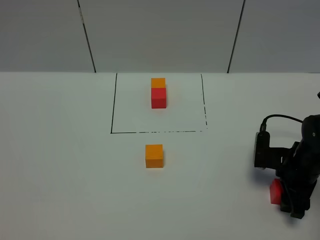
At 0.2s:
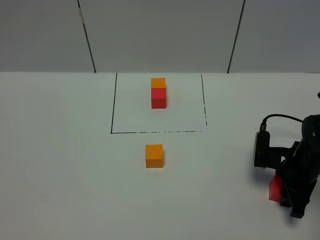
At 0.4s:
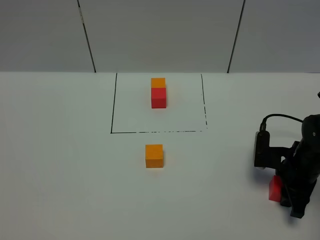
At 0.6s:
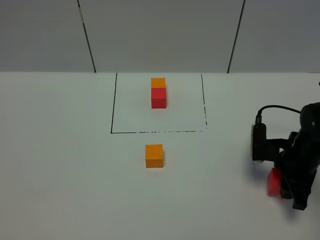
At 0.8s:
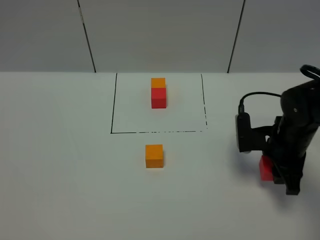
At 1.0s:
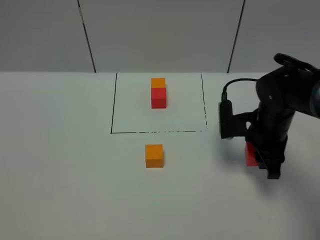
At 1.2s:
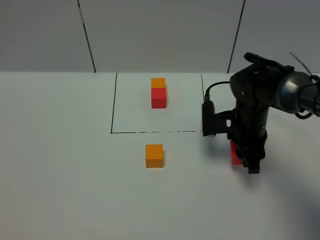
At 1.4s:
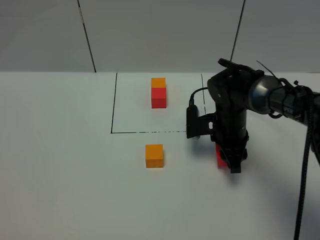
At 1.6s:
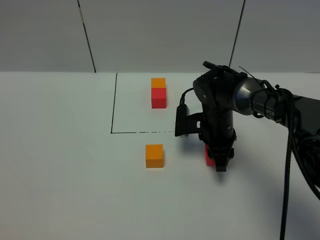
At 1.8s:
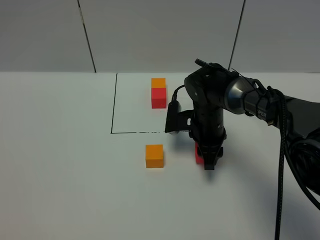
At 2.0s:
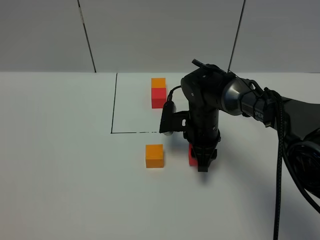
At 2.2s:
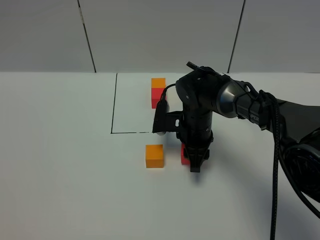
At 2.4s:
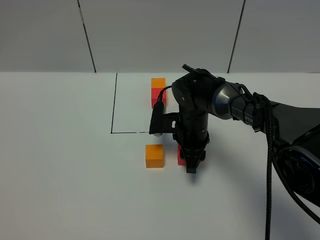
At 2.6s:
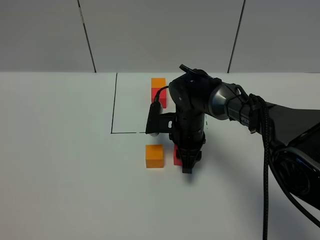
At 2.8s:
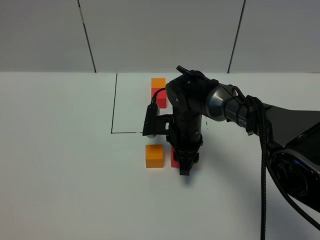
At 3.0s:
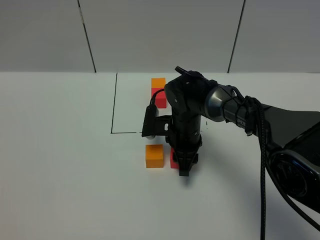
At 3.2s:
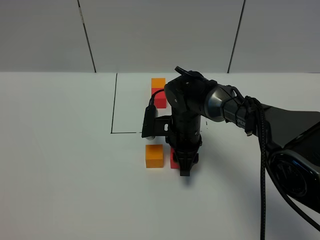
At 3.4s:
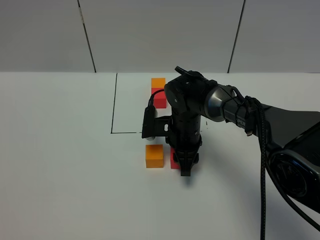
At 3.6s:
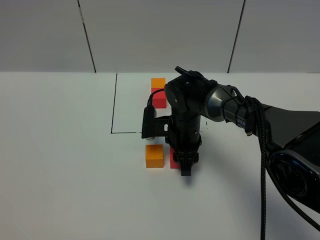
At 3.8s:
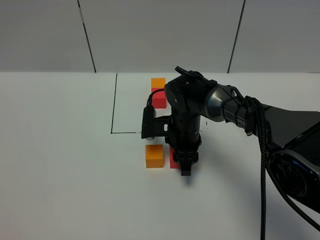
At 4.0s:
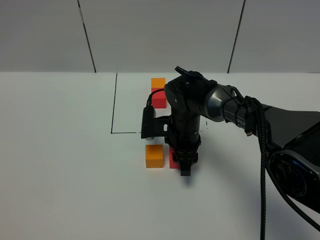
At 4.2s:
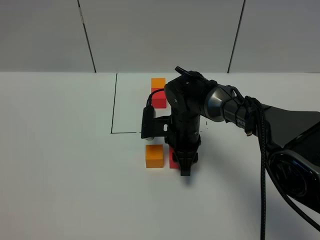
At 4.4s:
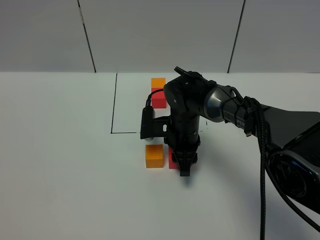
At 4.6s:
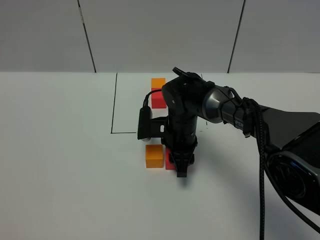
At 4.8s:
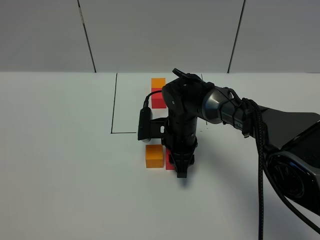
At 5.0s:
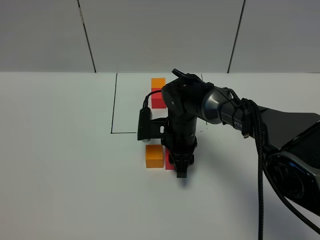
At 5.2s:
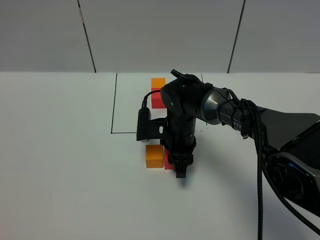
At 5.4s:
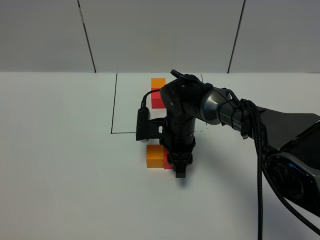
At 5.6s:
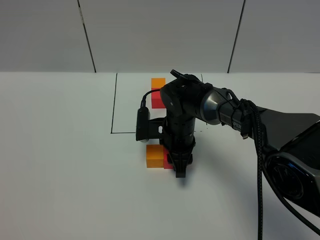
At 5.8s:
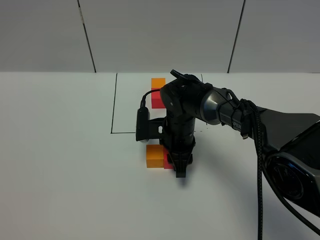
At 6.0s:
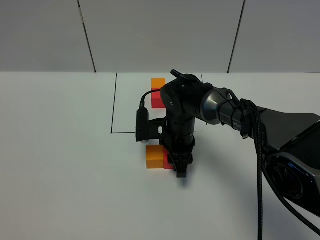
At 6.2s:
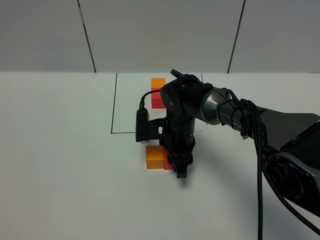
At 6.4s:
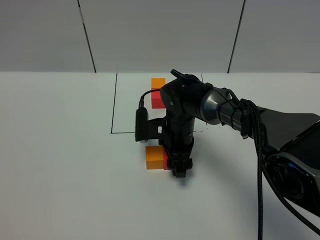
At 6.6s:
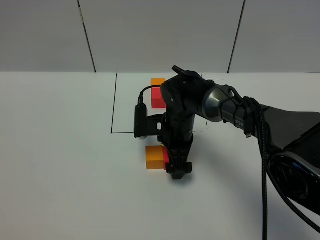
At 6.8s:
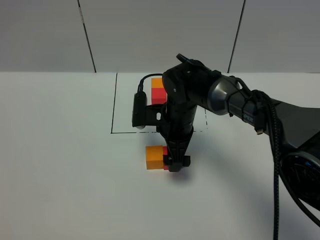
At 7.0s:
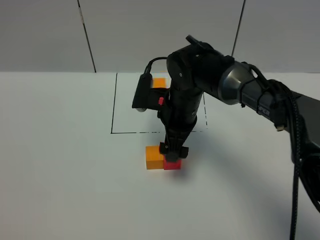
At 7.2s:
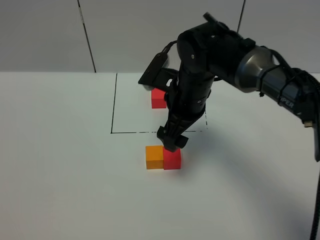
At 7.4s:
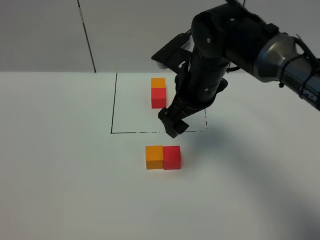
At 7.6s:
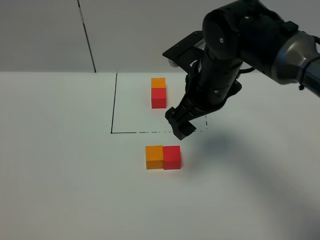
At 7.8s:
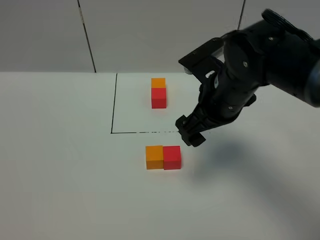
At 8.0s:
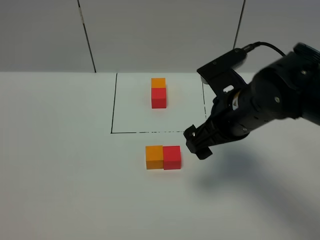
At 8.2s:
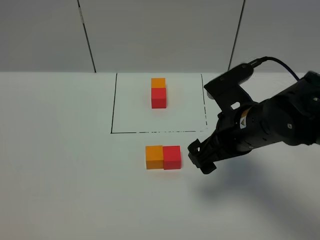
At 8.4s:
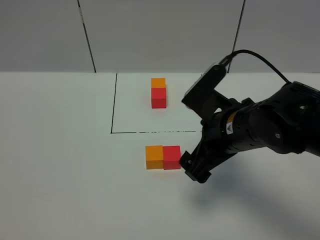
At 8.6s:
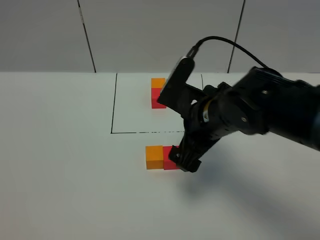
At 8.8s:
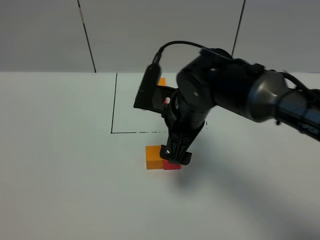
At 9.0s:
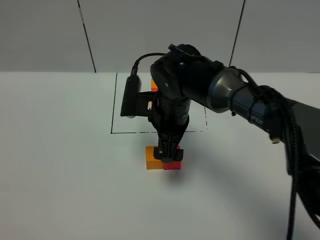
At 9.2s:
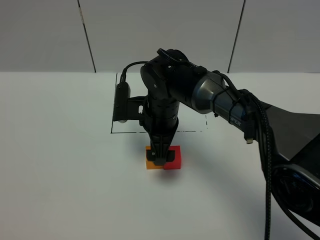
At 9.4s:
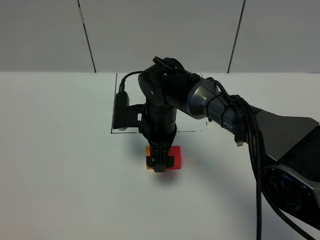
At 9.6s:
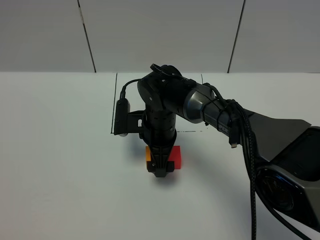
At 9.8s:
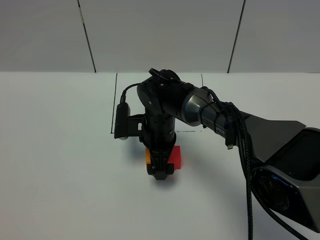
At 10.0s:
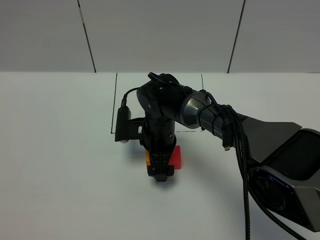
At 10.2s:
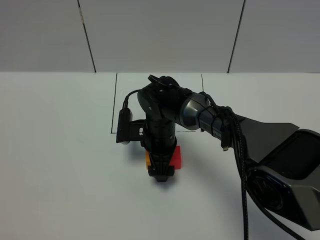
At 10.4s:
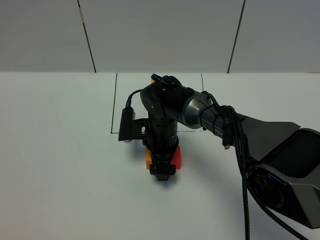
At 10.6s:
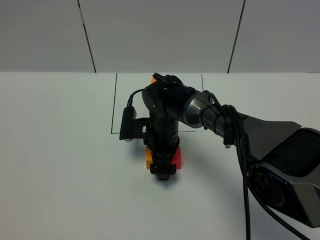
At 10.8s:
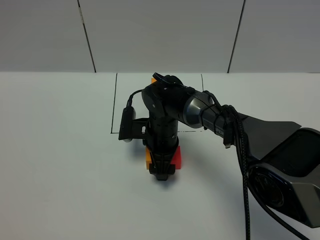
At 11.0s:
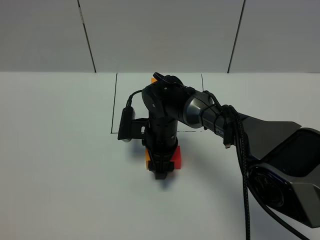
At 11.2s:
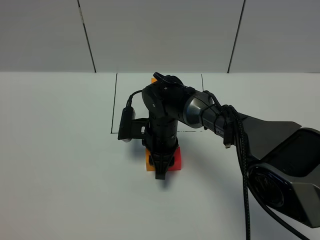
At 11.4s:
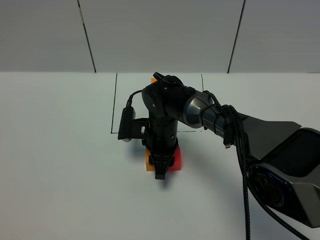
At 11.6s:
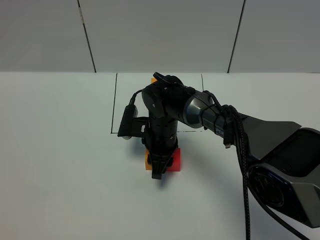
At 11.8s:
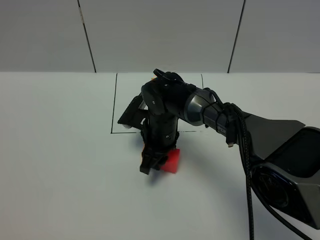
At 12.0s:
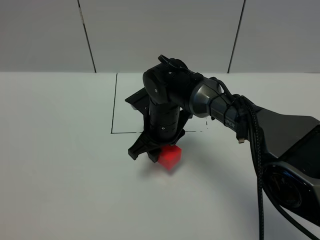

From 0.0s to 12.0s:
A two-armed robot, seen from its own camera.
Task of the whole recording: According to the building block template in front, assemble the scattered blocks together.
Step, from 0.0s to 6.8s: Put the red cube on the right of the orange cube.
From 0.0s to 1.6s: The right gripper goes roughly 20 cm to the left and forward.
From 1.6s to 3.0s: The right gripper goes roughly 5 cm to the left.
From 3.0s to 4.4s: Neither gripper changes place.
From 4.4s to 6.0s: The two grippers keep their place.
From 6.0s to 7.6s: The right gripper is displaced upward by roughly 15 cm, and opens up.
From 7.6s to 9.0s: The right gripper heads downward and to the left, covering about 10 cm.
From 9.0s to 10.4s: The right gripper travels downward by roughly 10 cm.
From 10.4s to 12.0s: The right gripper closes up.

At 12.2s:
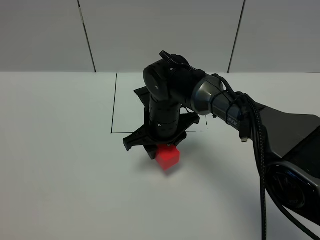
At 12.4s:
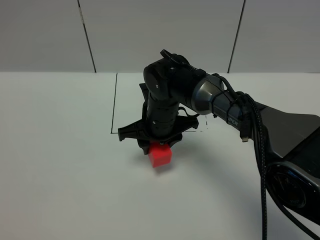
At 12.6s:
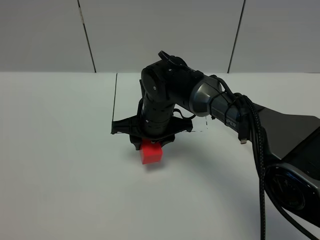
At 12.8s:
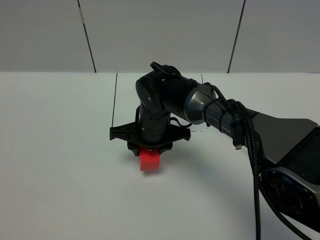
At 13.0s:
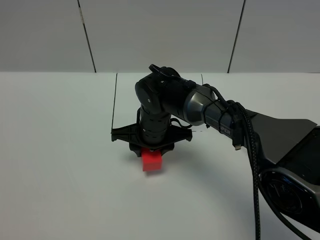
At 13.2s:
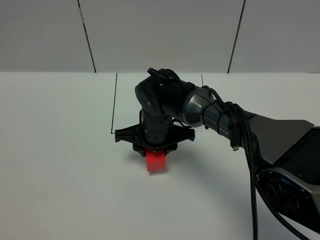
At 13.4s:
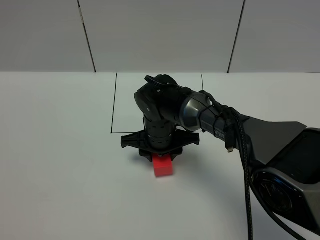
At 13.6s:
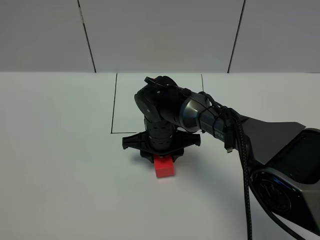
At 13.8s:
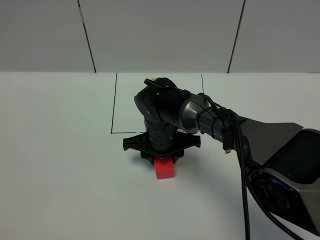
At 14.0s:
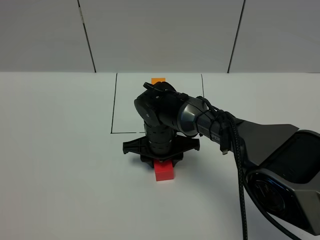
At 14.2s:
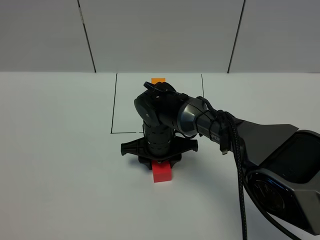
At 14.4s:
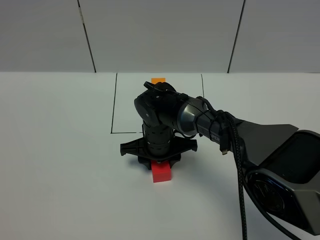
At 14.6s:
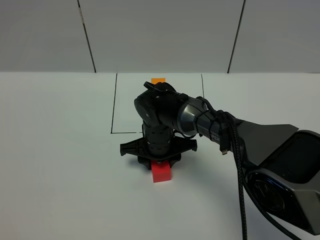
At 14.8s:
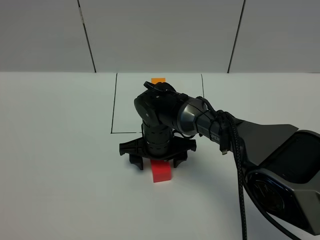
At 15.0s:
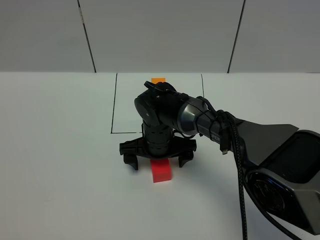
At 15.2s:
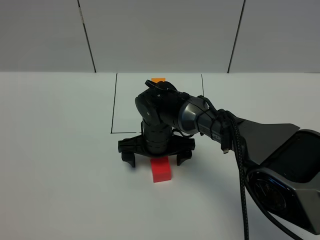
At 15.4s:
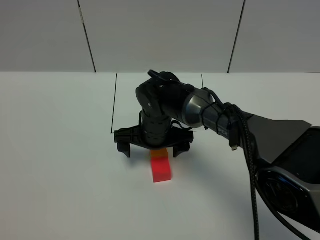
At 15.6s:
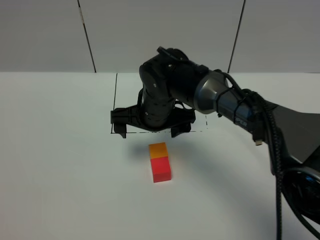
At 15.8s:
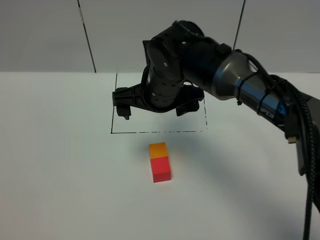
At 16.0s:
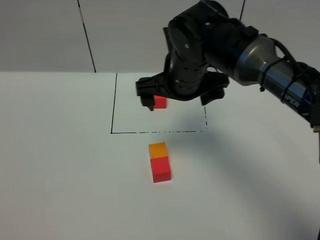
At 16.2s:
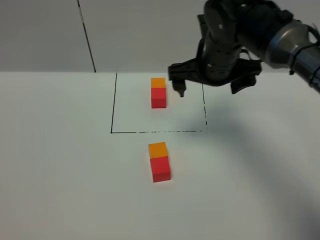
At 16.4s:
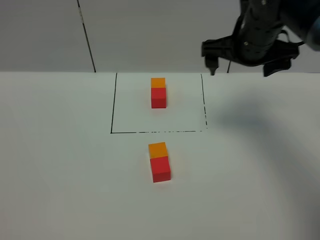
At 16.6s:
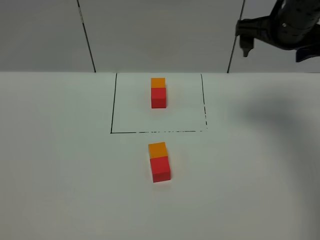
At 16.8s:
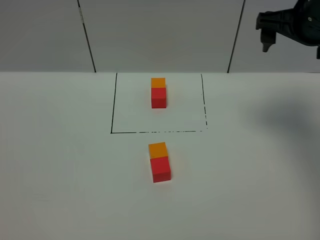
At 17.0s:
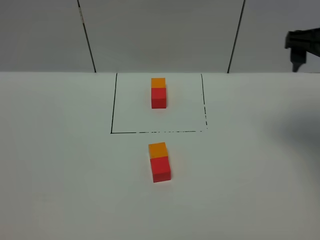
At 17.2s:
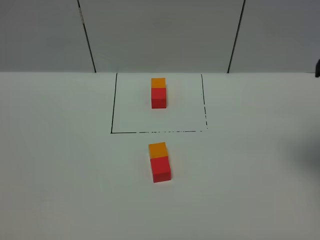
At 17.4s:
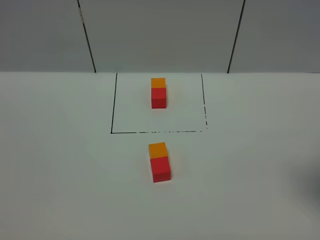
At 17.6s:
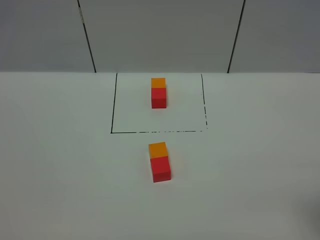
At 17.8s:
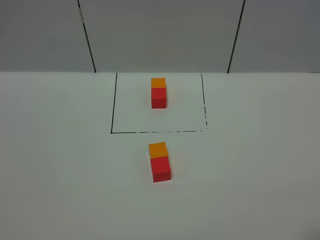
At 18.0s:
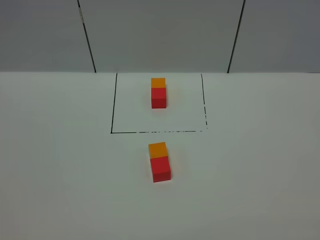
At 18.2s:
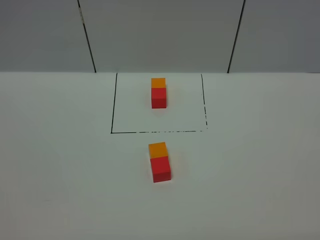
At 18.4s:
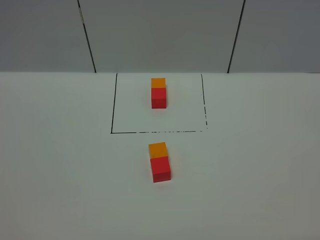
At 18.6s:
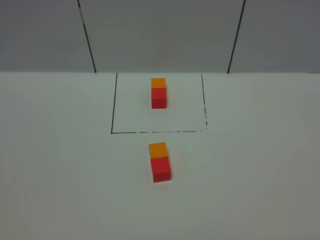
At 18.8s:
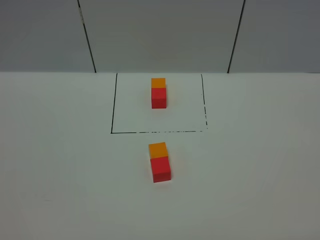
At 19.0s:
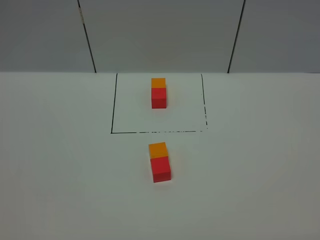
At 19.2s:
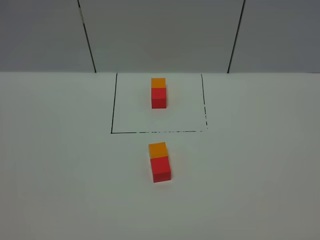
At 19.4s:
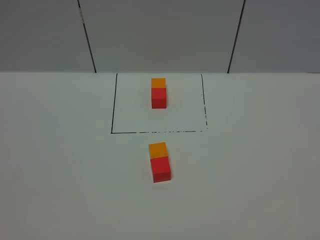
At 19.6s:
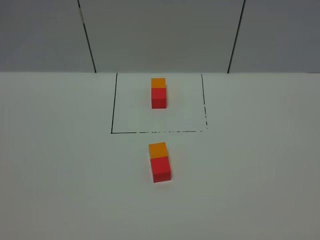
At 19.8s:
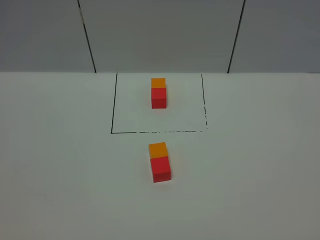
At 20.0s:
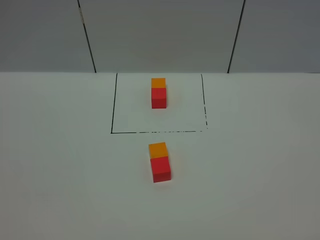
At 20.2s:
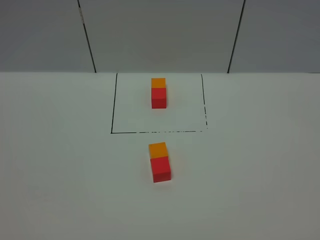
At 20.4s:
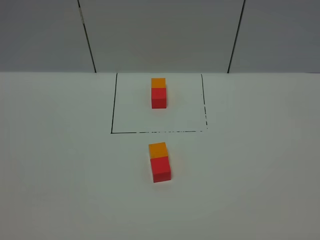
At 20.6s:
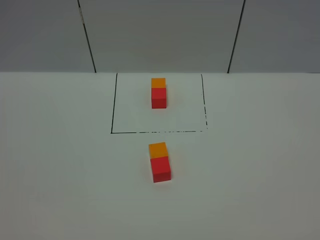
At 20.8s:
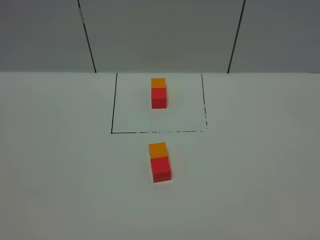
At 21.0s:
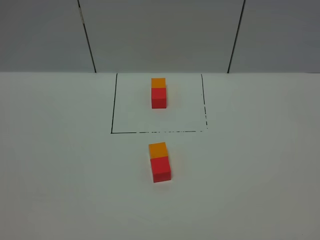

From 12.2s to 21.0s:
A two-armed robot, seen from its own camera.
Task of the whole recording: According to the building block template in front, assemble the scattered blocks together.
Step, from 12.2s to 15.6s: Adjust the pose of the building blocks.
From 13.6s to 15.2s: The right gripper opens.
From 15.2s to 16.6s: The right gripper travels upward and to the right by about 35 cm.
From 16.6s to 18.0s: The right gripper is displaced backward by about 35 cm.
From 19.6s to 21.0s: Neither gripper changes place.

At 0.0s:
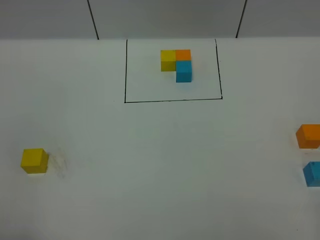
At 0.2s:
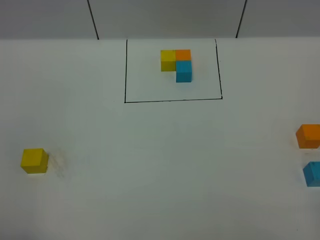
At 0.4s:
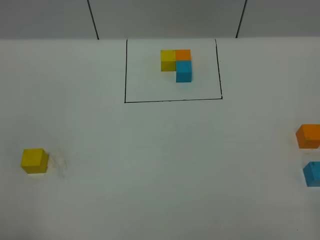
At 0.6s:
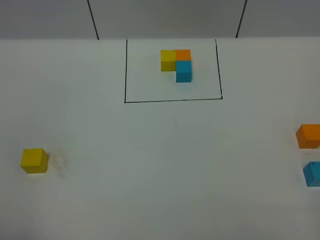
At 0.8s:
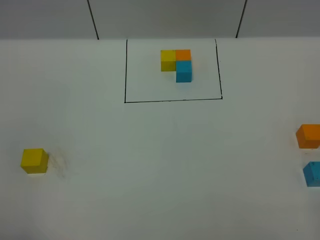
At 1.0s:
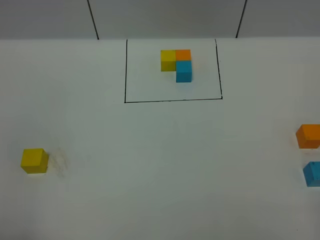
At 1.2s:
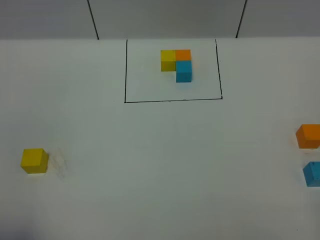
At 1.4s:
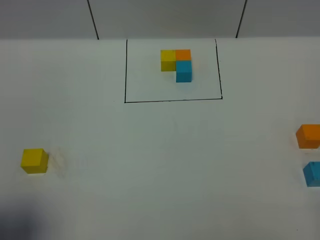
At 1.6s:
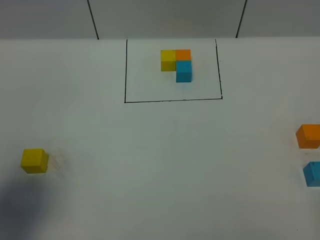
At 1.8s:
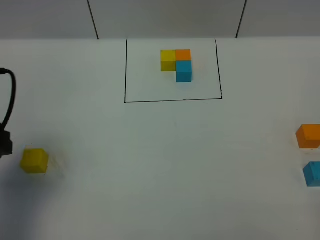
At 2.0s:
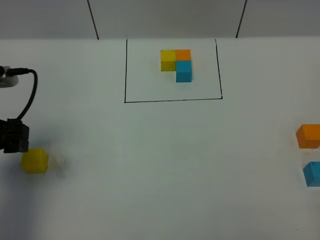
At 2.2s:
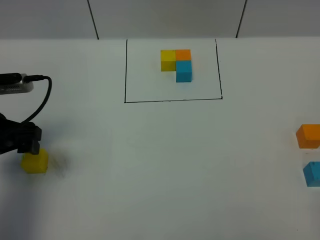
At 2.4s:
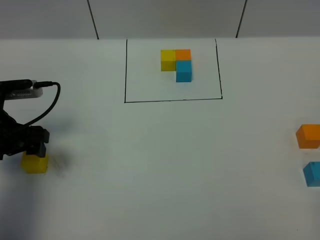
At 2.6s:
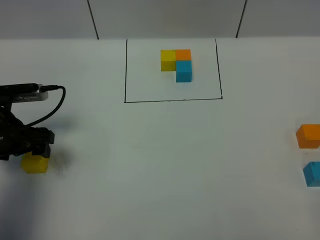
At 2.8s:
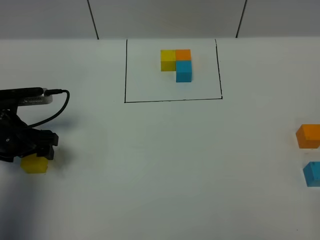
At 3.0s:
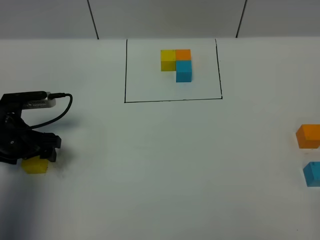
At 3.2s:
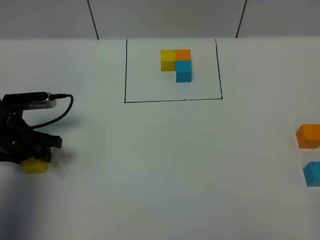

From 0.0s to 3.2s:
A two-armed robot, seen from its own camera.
Task of the whole recording: According to the building block template in front, assemble the scattered blocks together.
From 0.0s to 1.6s: The left gripper moves forward, approximately 15 cm.
From 1.6s to 3.2s: The left gripper is displaced downward and forward by approximately 25 cm, and closes its fingers.
